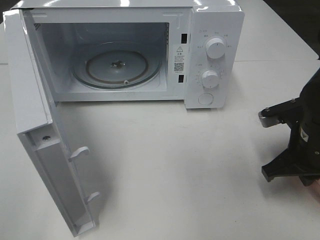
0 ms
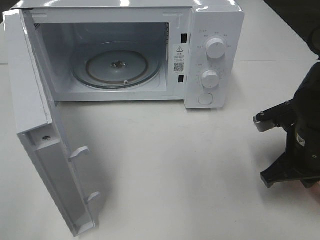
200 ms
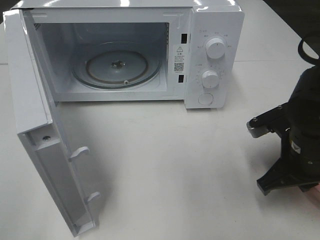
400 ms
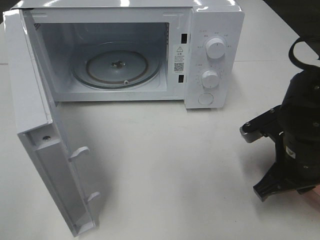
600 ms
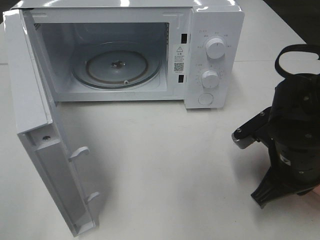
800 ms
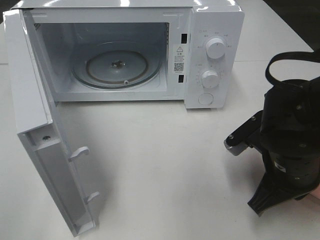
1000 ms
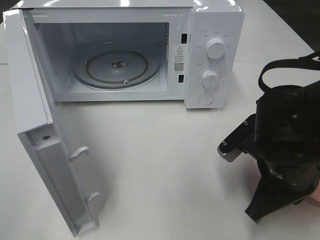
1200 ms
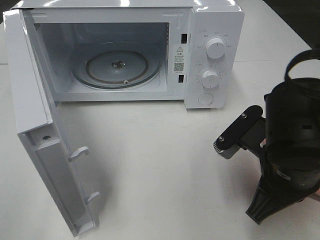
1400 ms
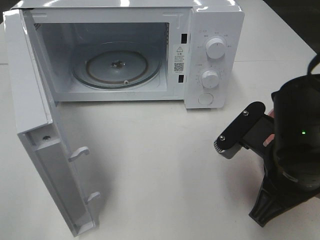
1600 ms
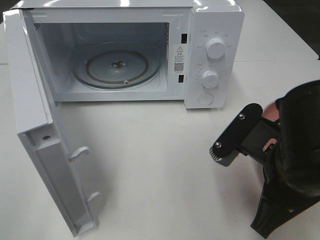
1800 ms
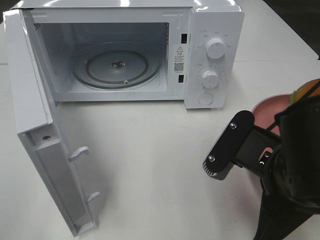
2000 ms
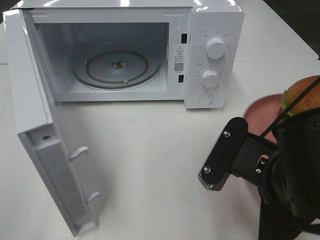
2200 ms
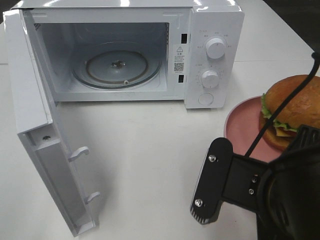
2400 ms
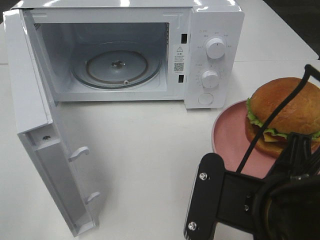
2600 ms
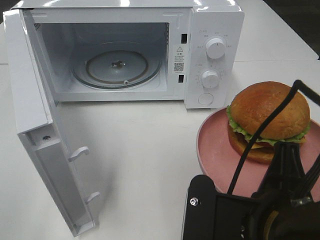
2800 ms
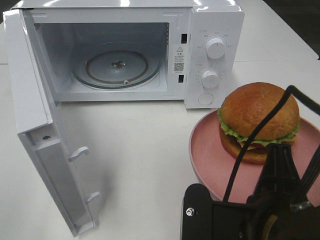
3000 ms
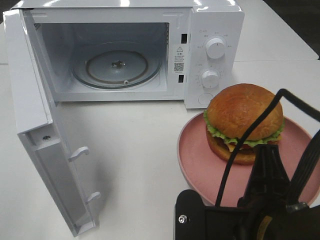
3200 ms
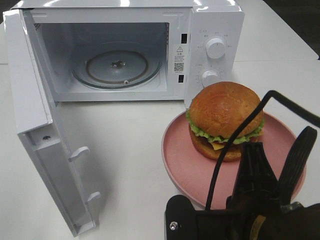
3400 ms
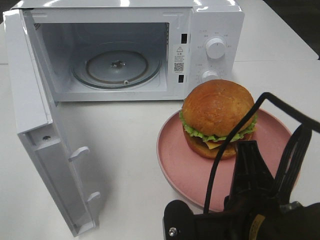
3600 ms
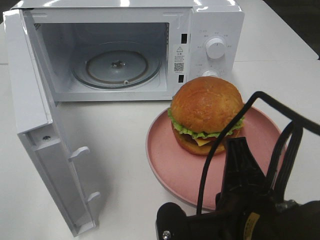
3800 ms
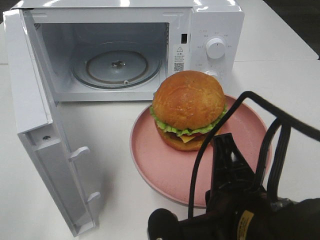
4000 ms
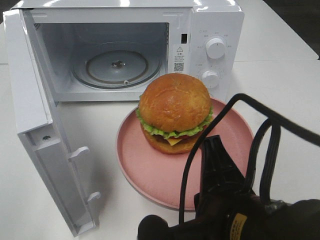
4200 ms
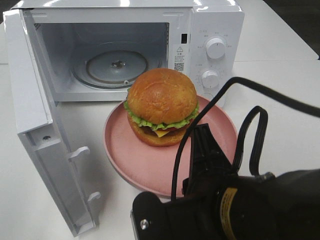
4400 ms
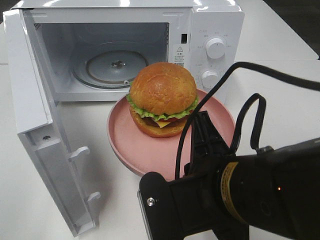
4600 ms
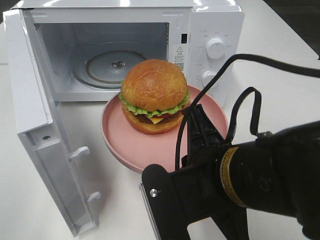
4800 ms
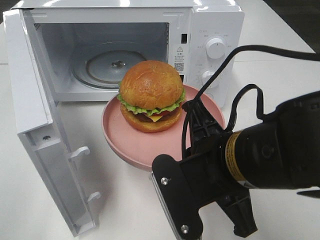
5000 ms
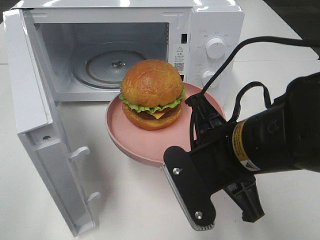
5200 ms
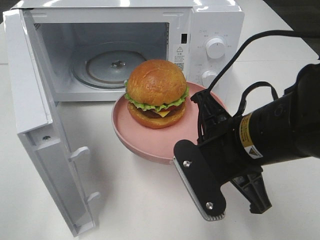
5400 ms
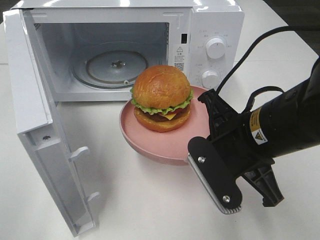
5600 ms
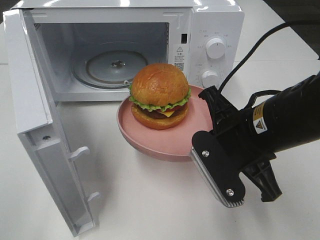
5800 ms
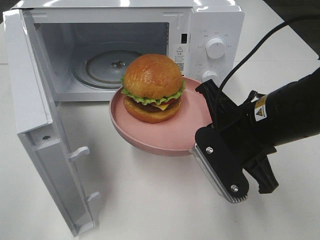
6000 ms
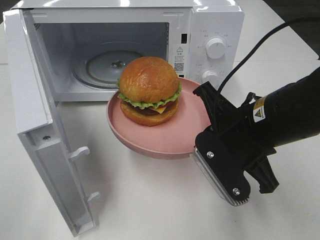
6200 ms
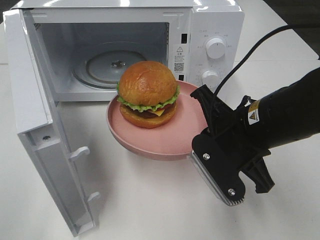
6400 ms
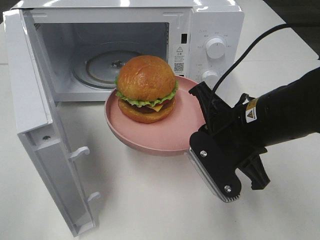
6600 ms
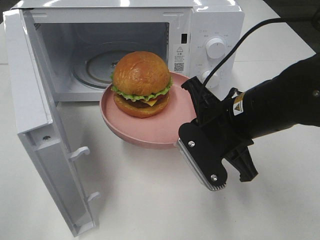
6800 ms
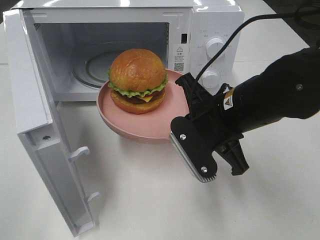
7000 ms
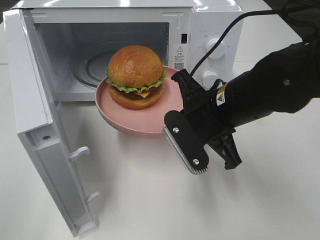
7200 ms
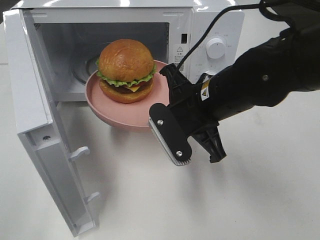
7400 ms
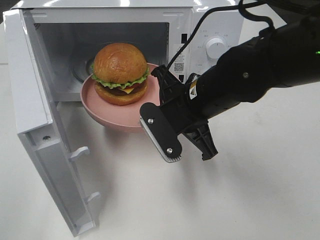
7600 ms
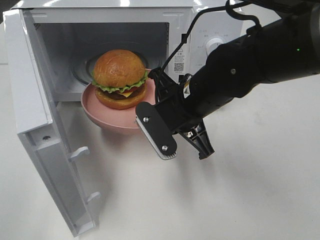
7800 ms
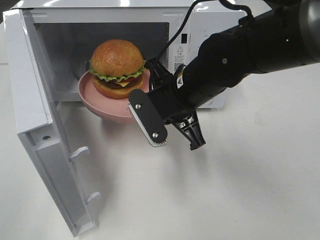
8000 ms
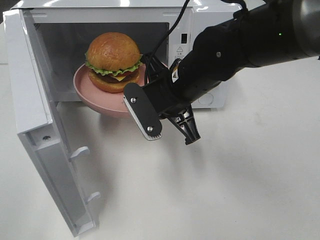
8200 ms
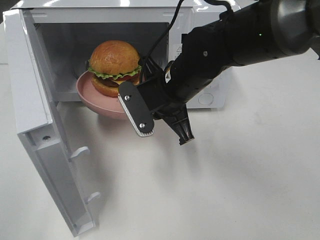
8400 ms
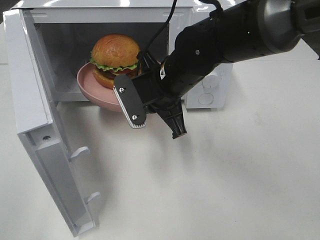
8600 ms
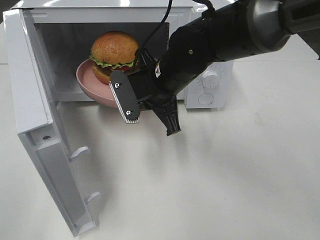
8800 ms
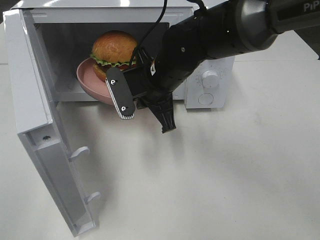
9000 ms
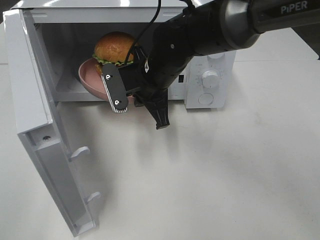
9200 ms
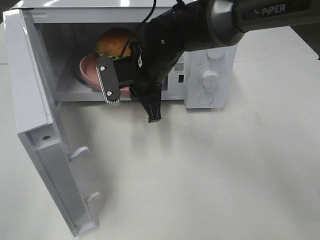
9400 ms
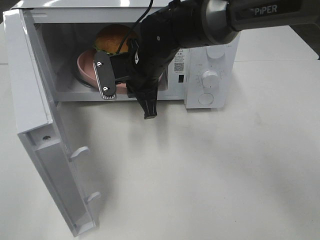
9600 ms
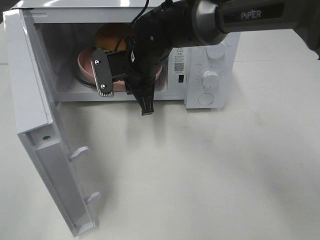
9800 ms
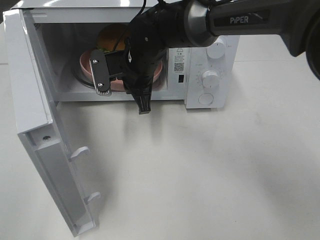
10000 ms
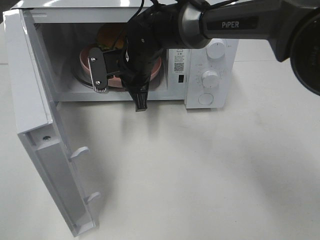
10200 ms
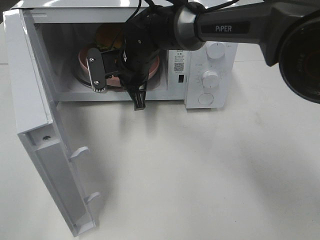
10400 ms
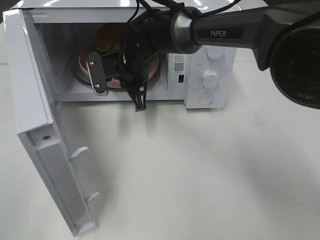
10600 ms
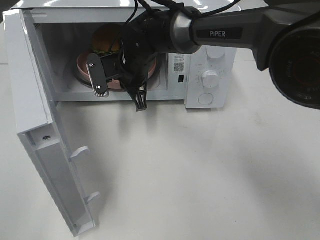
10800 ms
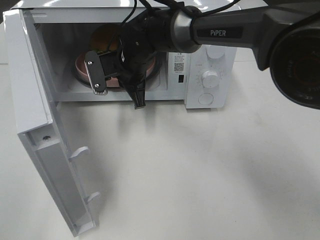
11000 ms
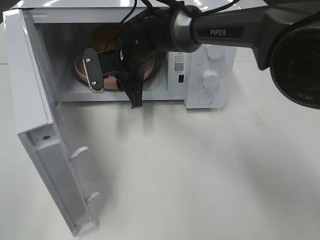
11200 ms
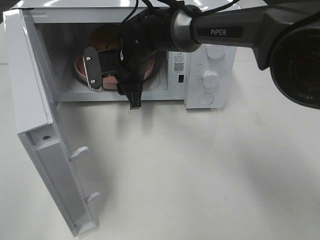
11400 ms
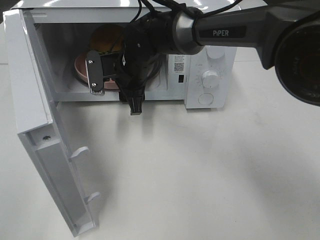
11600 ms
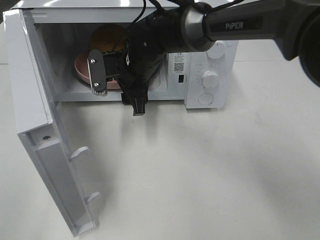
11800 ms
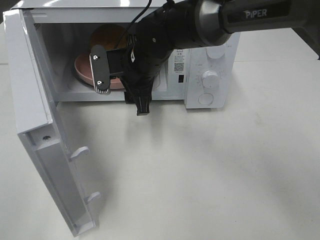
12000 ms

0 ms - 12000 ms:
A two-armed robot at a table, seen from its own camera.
Task of the whole recording: Heat the burger.
Step, 0 ms - 11200 ms: Right hand: place the plate in the microwave.
0 ms - 1600 ms: The right gripper is displaced to the left and backward by roughly 10 cm.
1600 ms - 3000 ms: The right gripper travels backward and to the left by about 10 cm.
4400 ms - 6000 ms: The right gripper travels forward and to the right by approximately 15 cm.
6000 ms - 7600 ms: The right gripper shifts about 10 cm forward and to the left.
7600 ms - 9000 ms: The right gripper moves forward, roughly 5 cm.
9000 ms - 10400 ms: The right gripper moves forward, roughly 5 cm.
10400 ms - 12000 ms: The right gripper opens its fingers.

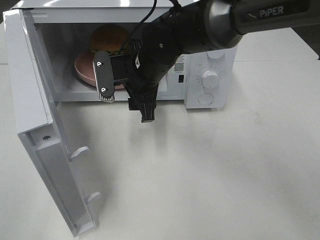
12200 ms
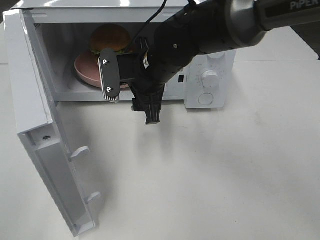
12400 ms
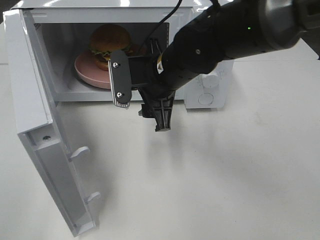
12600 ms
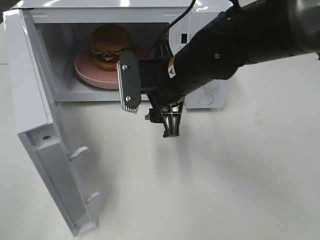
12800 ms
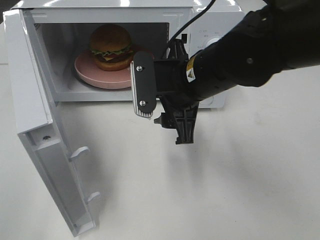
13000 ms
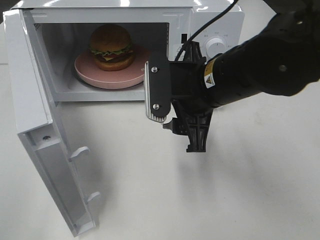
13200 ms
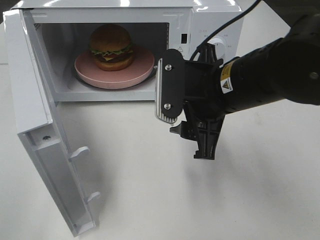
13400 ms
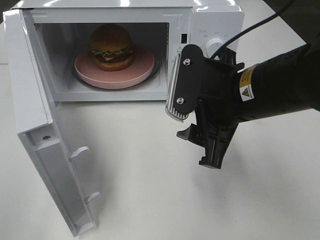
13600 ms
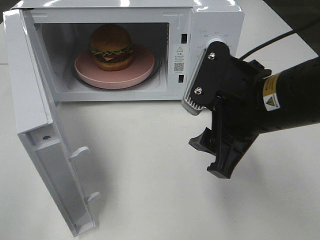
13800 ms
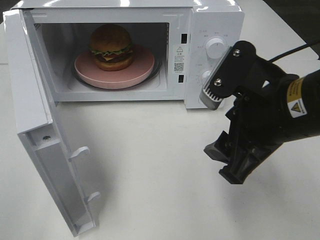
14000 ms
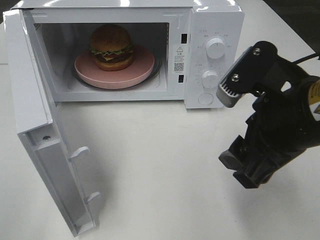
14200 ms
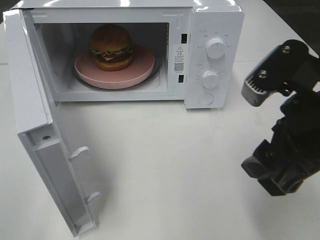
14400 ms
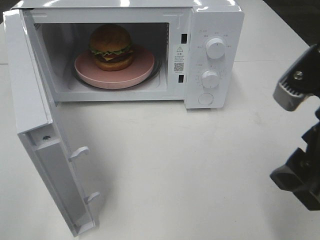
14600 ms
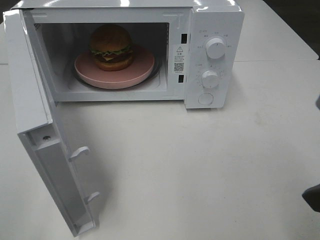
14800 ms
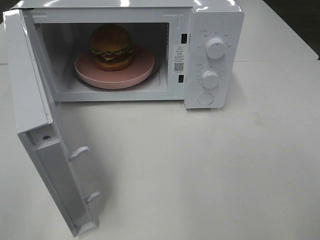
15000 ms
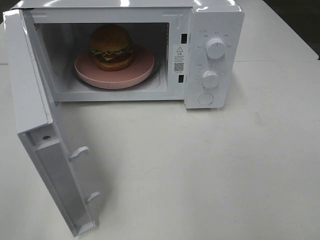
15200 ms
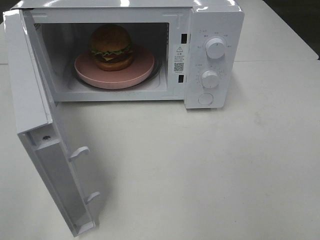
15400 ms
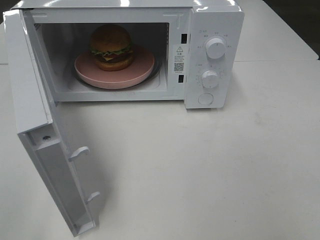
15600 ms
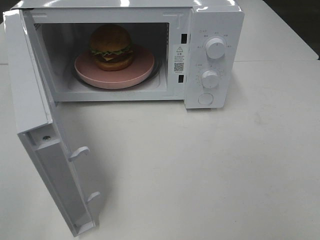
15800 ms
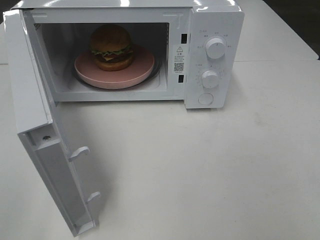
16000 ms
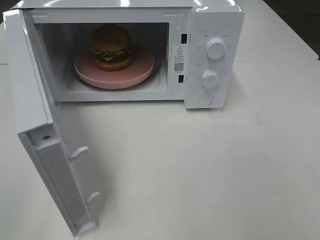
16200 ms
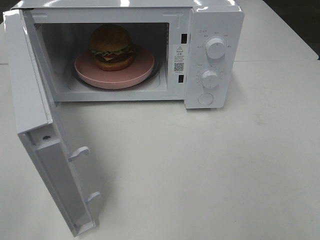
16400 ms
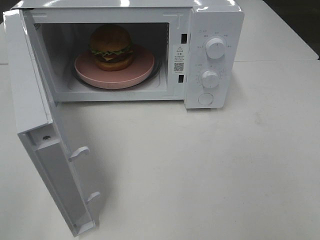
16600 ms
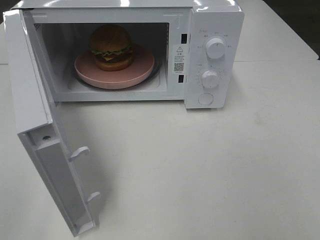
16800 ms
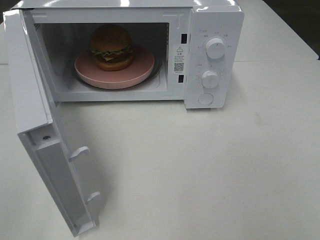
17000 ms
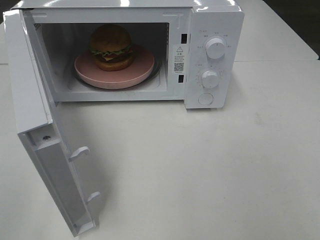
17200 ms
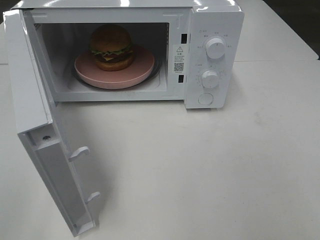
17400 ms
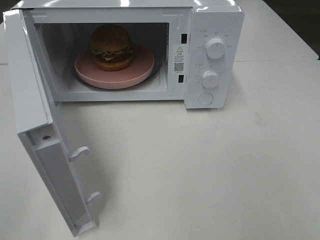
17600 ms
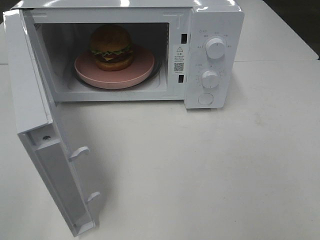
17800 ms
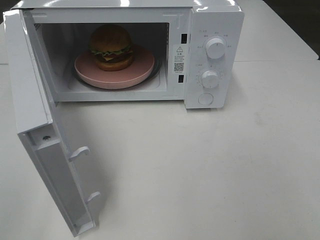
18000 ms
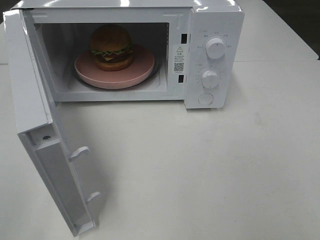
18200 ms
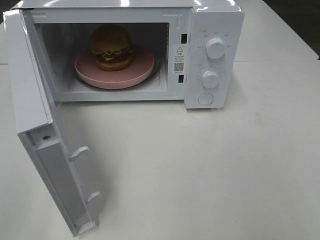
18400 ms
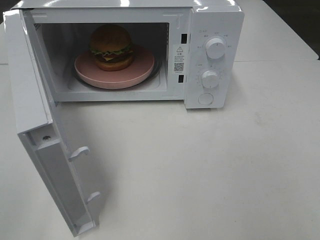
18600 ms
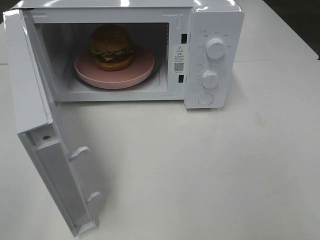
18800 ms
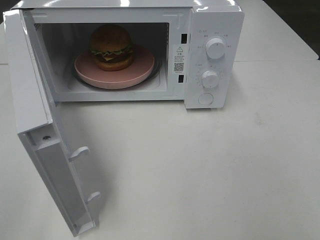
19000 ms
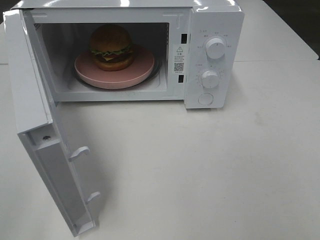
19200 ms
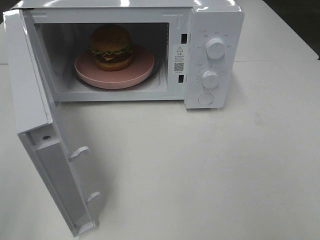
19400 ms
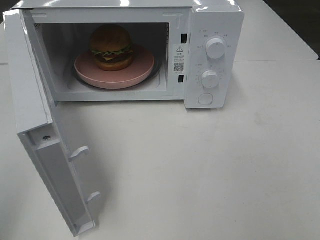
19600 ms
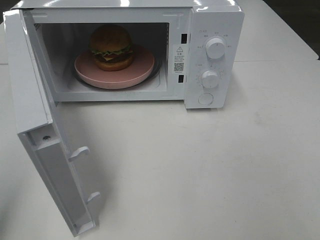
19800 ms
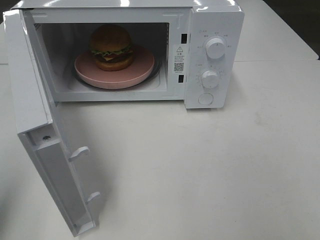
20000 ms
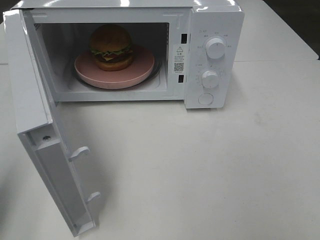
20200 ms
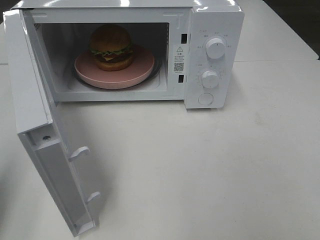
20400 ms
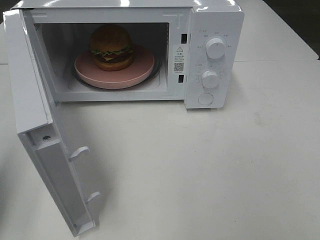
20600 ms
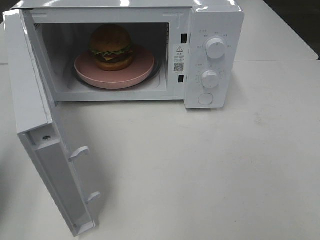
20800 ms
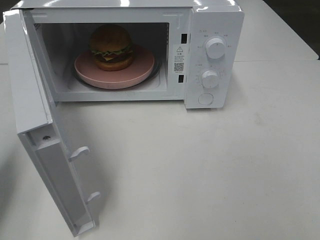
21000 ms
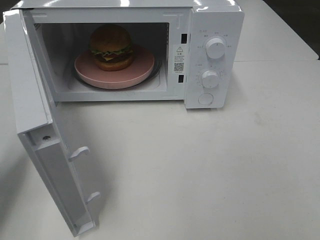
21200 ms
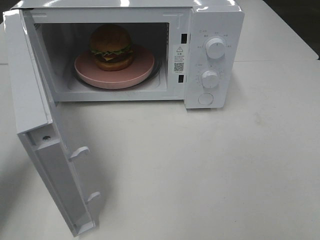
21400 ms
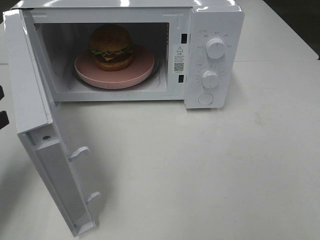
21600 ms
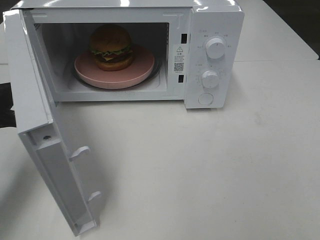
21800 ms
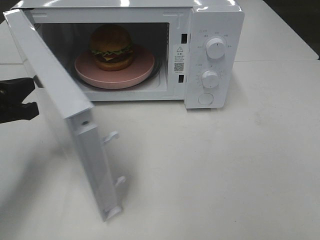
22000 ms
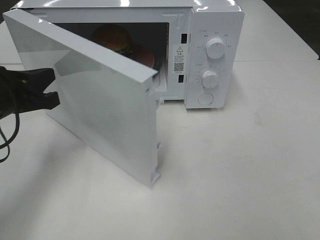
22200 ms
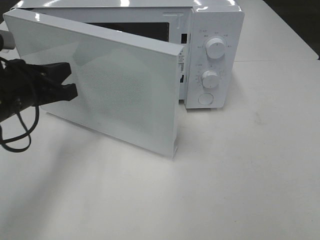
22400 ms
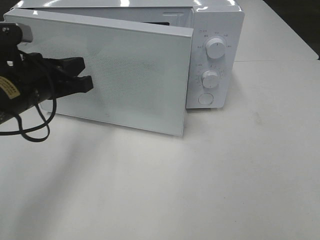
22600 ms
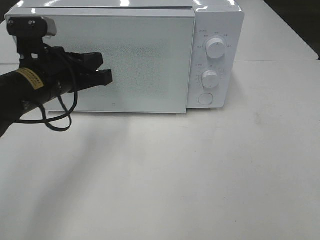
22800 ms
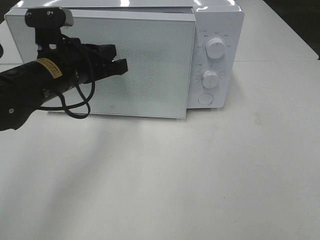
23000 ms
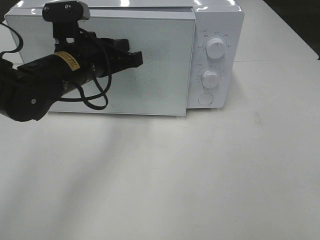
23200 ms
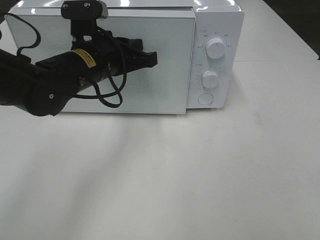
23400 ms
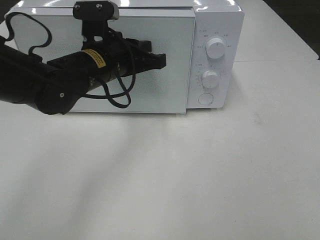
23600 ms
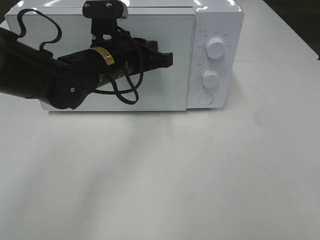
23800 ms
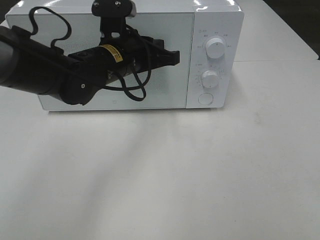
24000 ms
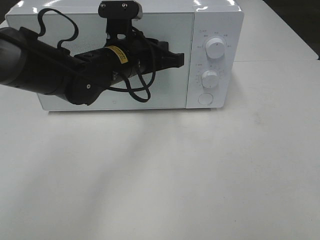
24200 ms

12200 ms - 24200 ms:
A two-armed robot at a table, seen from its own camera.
Task of the whole recording: Heat the burger.
12200 ms - 13800 ms: The right gripper heads backward and to the right, covering roughly 20 cm.
13800 ms - 15200 ms: The right gripper is displaced backward, to the right and upward by some 20 cm.
16600 ms - 18200 ms: Both grippers stay put.
19800 ms - 21200 ms: The left gripper travels forward and downward by approximately 15 cm.
21200 ms - 22600 ms: The left gripper is displaced to the right and forward by some 15 cm.
22600 ms - 24200 ms: The left gripper travels to the right and forward by some 15 cm.
